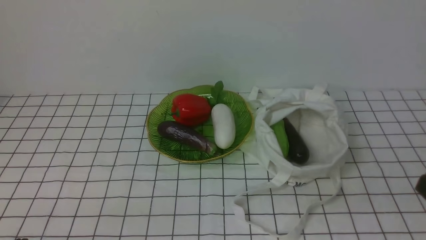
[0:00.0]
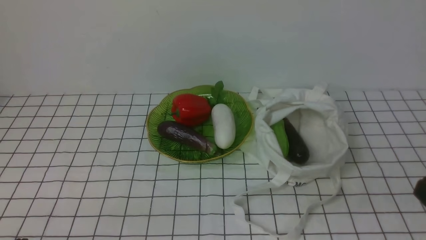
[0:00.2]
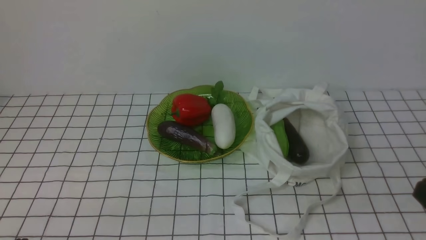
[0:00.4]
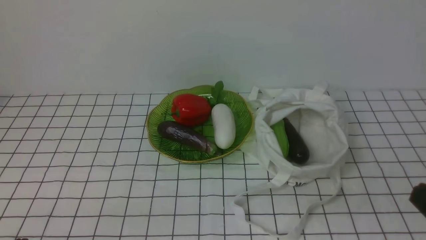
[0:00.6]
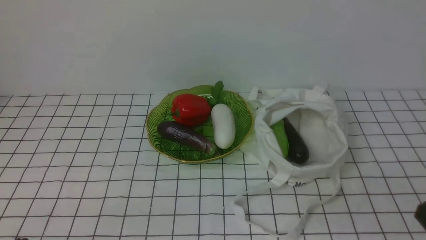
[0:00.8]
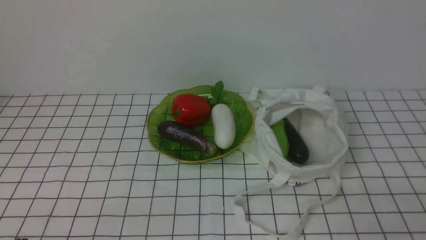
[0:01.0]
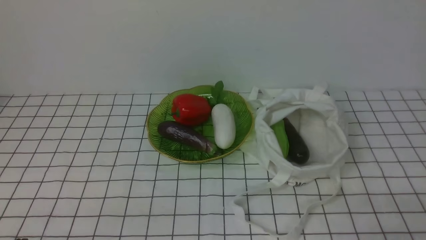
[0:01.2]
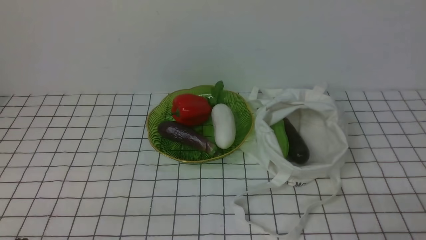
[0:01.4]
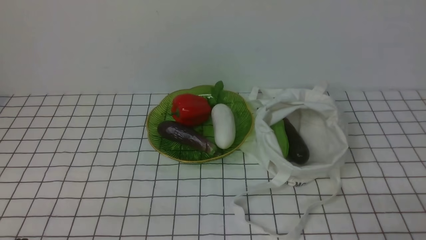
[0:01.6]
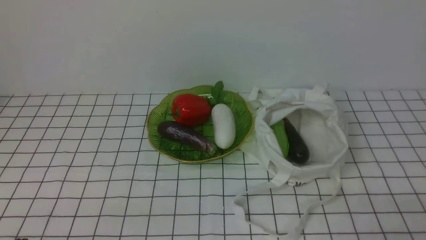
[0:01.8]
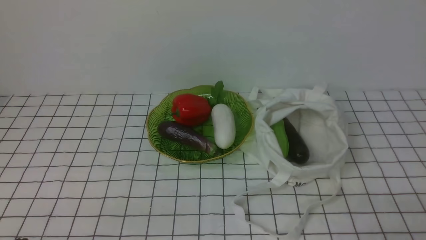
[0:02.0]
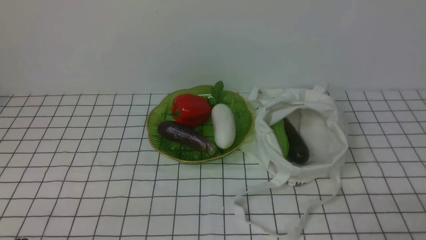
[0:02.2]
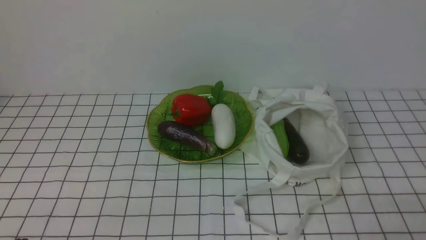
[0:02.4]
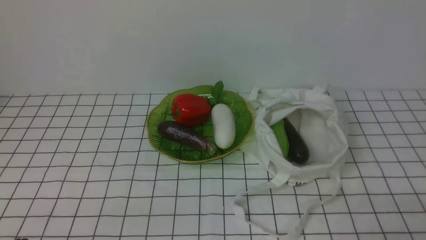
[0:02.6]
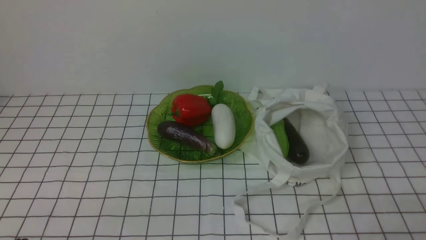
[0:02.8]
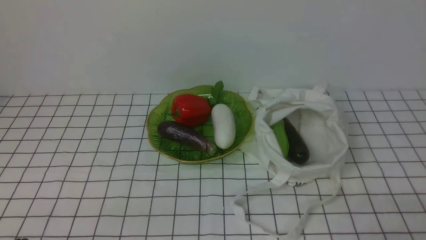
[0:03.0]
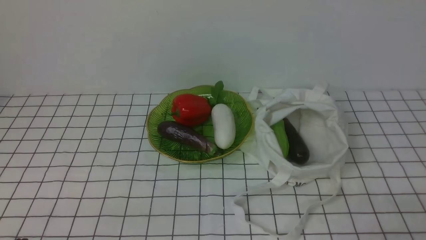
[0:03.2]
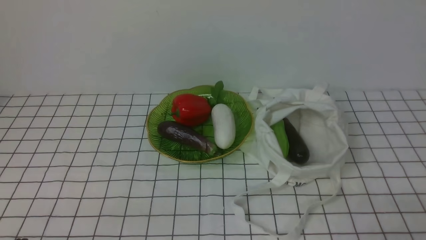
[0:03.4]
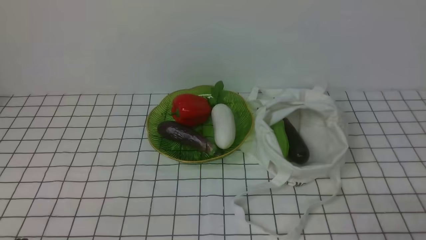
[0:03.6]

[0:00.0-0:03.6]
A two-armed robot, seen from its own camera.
Task of the whole recording: take vegetables from bag on white checkered tablecloth place on plate.
0:01.8 to 0:03.6: The two grippers keep their place.
